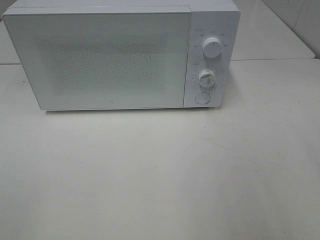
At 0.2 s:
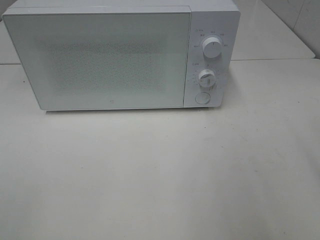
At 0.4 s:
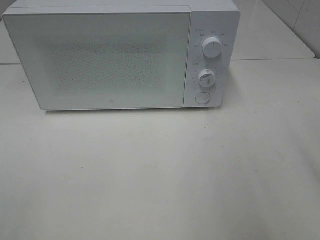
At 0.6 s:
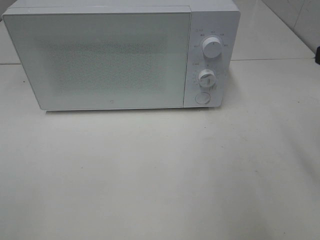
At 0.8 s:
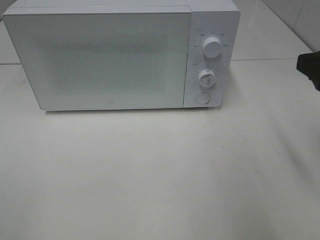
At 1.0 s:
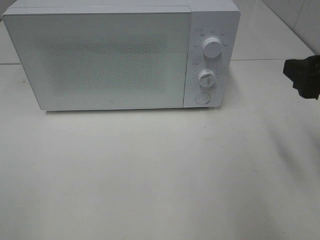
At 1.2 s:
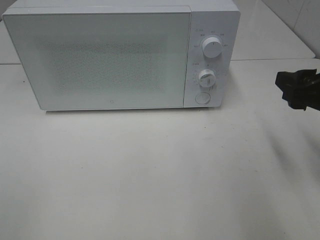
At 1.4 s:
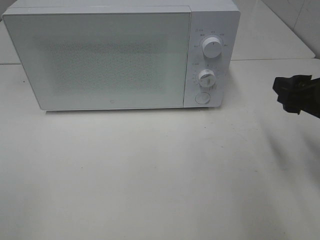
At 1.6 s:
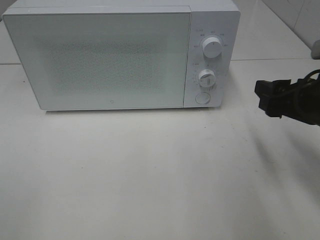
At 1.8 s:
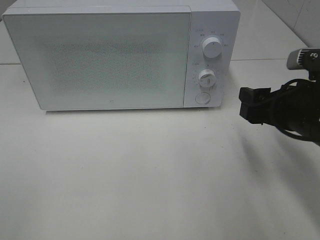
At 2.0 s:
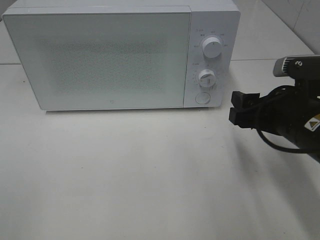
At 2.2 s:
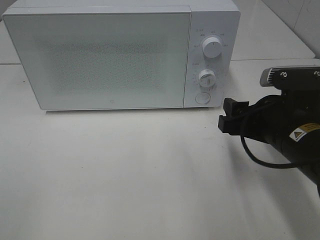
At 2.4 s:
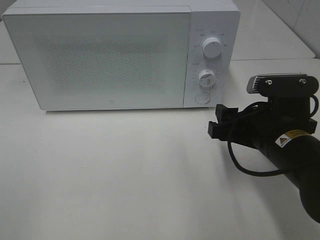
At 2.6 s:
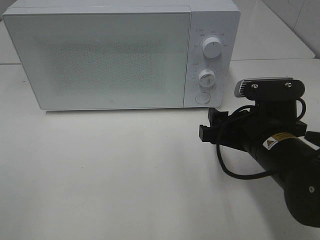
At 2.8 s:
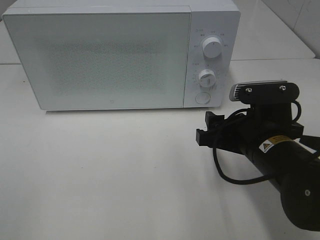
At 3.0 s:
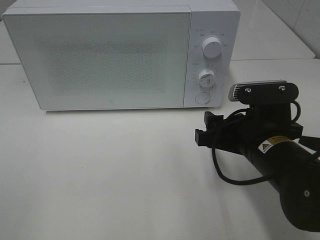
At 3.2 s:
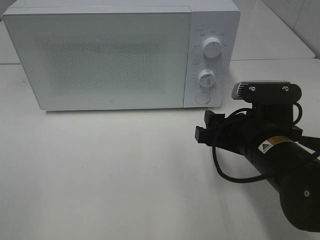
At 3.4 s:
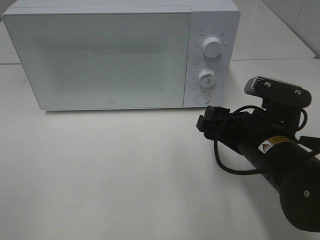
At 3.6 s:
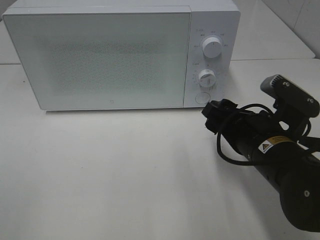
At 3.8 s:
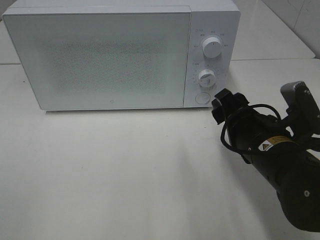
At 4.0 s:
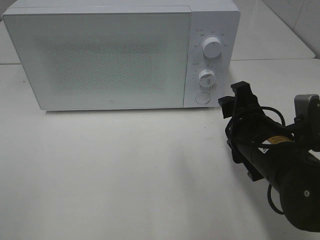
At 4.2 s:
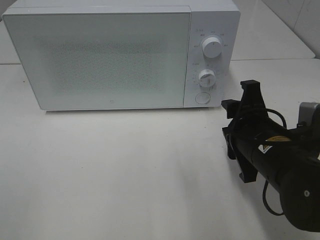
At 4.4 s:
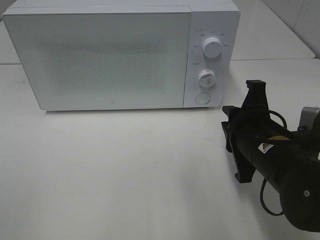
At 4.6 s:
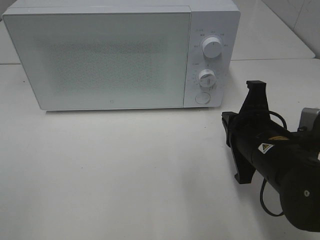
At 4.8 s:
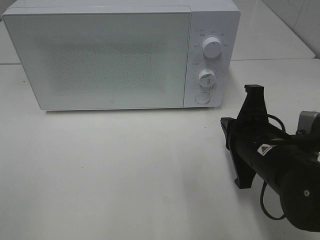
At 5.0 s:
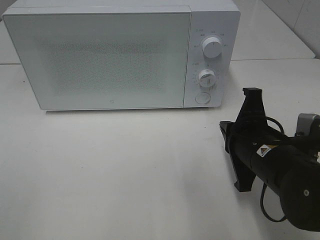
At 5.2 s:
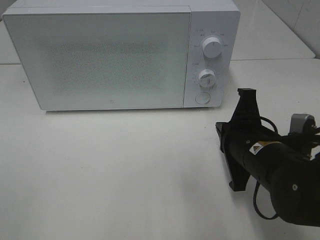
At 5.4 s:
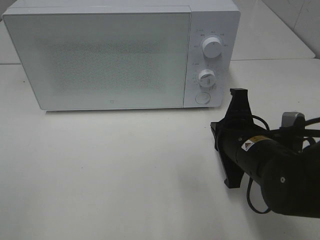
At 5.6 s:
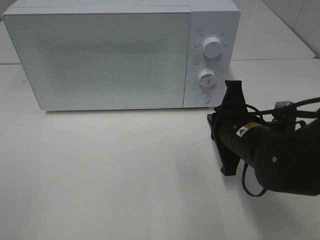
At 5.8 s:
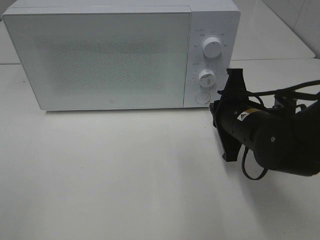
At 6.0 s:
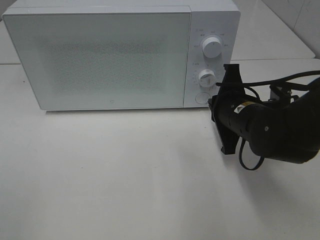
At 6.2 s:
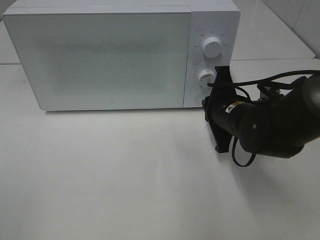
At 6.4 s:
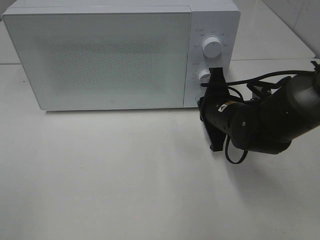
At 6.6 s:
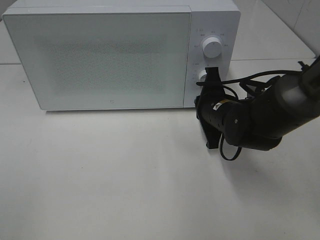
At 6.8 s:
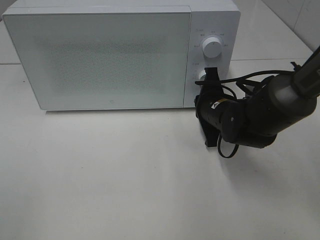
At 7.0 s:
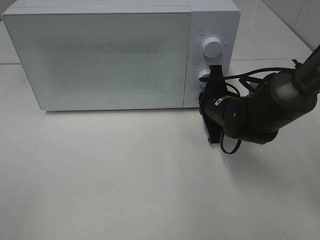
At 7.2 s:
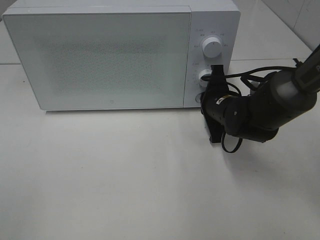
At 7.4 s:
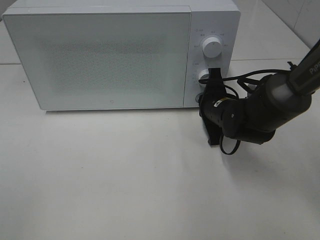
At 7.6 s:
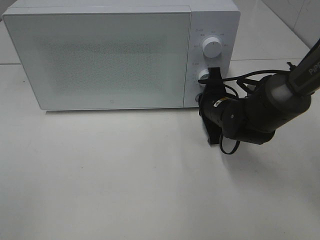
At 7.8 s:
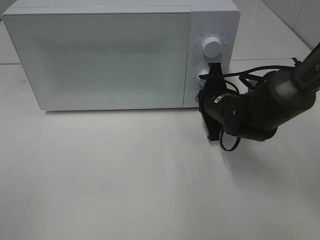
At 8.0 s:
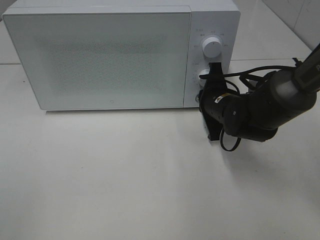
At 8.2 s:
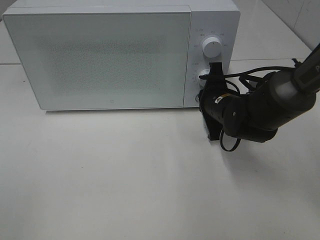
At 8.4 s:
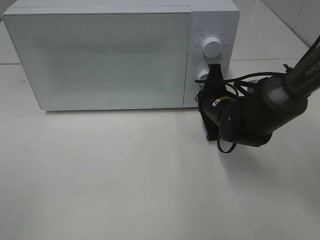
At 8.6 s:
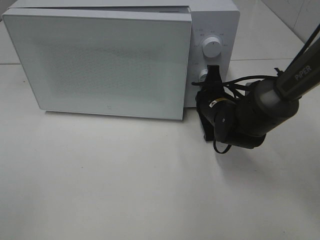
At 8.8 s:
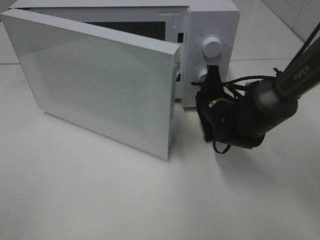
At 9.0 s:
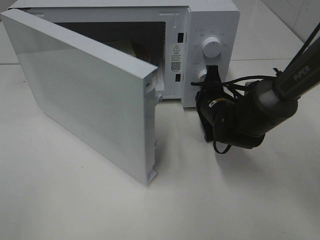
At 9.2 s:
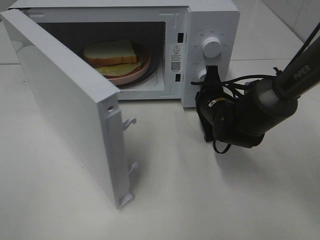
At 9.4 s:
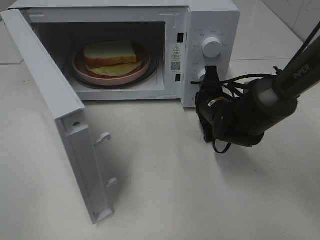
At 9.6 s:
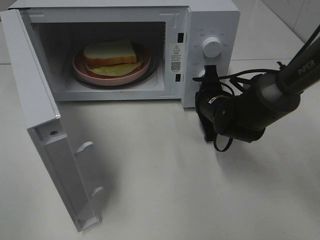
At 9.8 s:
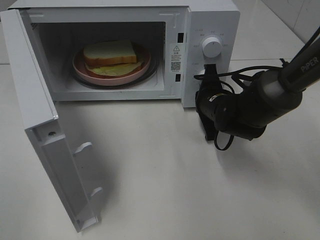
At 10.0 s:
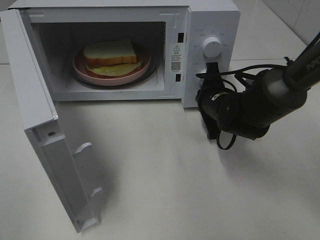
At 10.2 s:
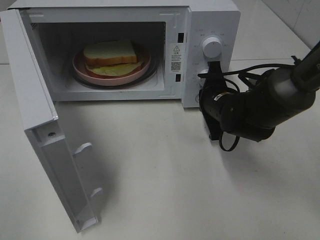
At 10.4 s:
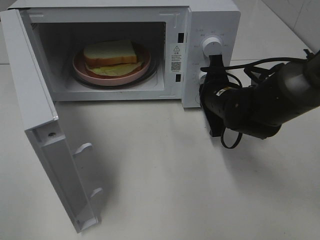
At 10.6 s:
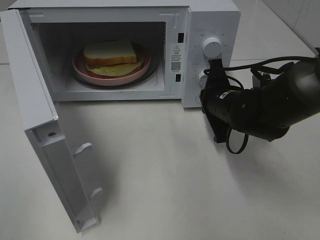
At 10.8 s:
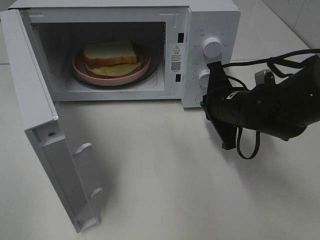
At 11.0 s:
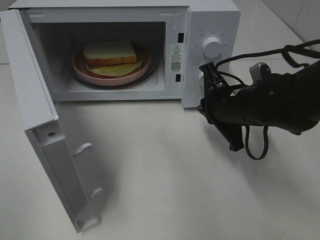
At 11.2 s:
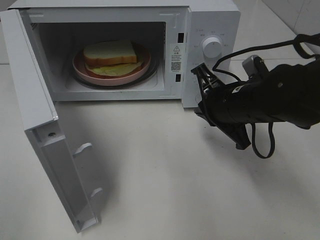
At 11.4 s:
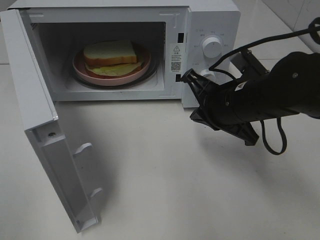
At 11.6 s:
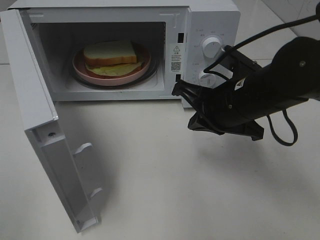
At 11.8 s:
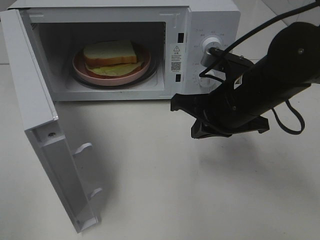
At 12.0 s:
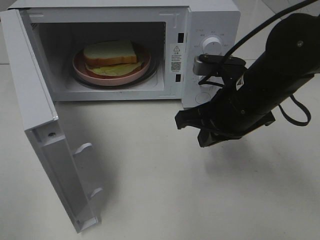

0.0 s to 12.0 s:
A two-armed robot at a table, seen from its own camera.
Task of the whole recording: Heat Sandwich.
Step, 0.0 to 10.4 s: Right hand: press the switch.
0.0 to 1.6 s: The right gripper travels downward and forward by about 15 cm.
1.6 to 3.0 s: The right gripper moves to the left and downward, about 10 cm.
3.0 to 4.4 s: The right gripper closes.
4.4 to 6.0 s: The right gripper moves forward, about 10 cm.
6.0 to 7.6 s: The right gripper travels forward by approximately 5 cm.
10.4 to 12.0 s: The right gripper shifts about 10 cm backward and upward.

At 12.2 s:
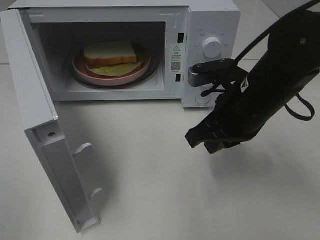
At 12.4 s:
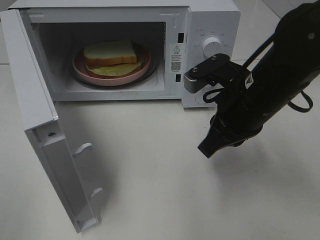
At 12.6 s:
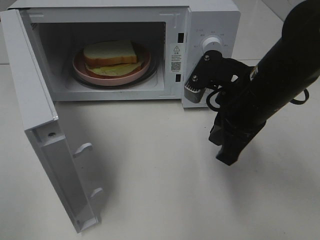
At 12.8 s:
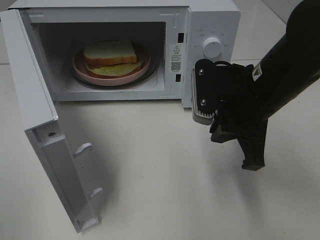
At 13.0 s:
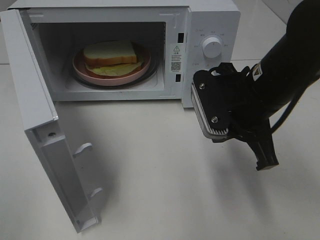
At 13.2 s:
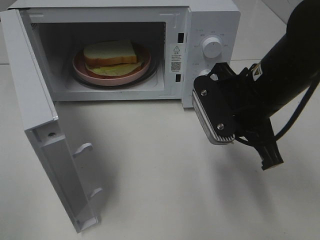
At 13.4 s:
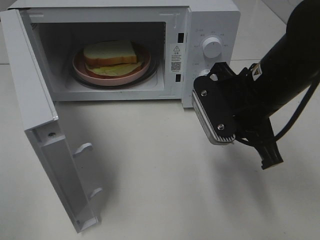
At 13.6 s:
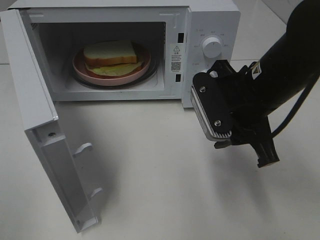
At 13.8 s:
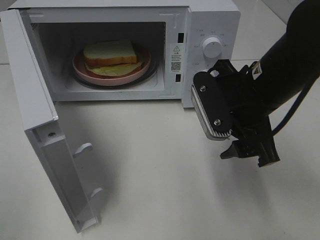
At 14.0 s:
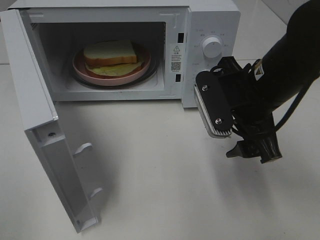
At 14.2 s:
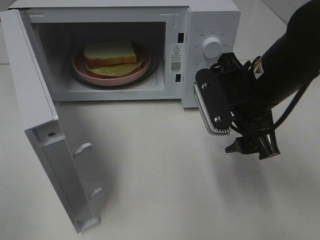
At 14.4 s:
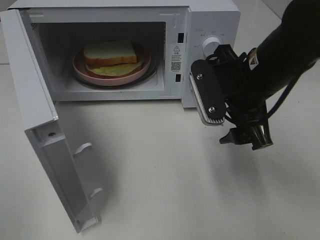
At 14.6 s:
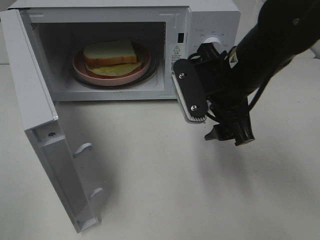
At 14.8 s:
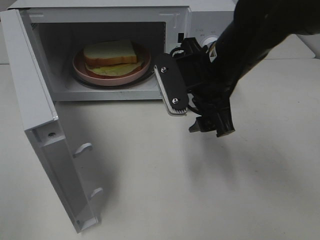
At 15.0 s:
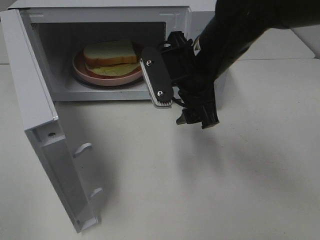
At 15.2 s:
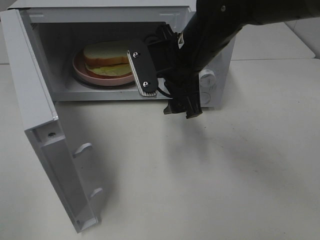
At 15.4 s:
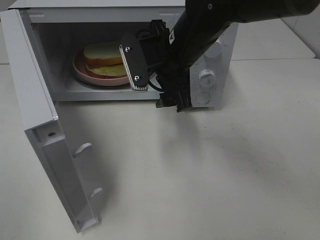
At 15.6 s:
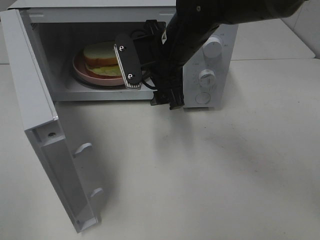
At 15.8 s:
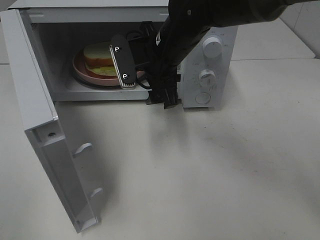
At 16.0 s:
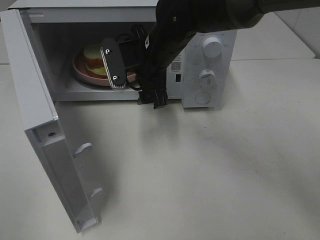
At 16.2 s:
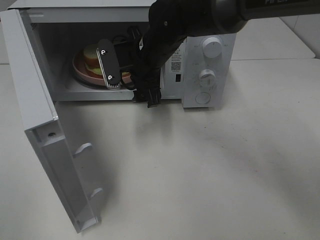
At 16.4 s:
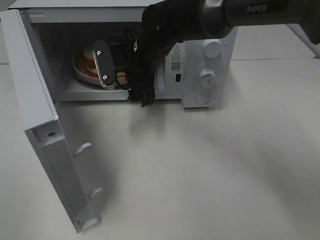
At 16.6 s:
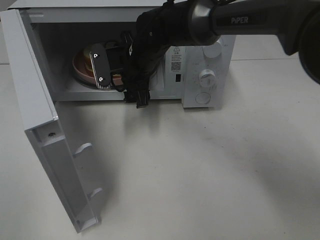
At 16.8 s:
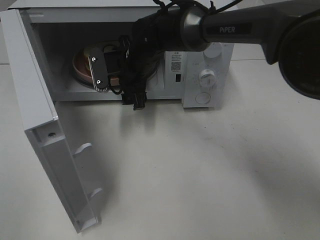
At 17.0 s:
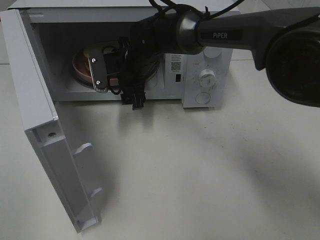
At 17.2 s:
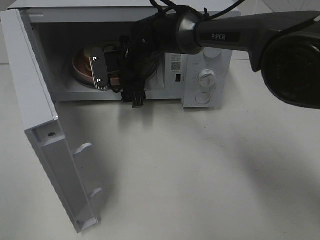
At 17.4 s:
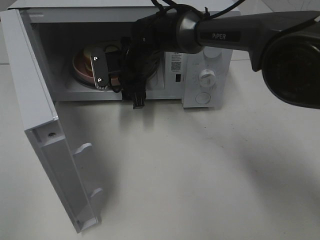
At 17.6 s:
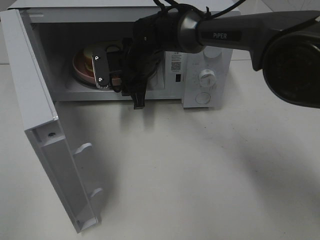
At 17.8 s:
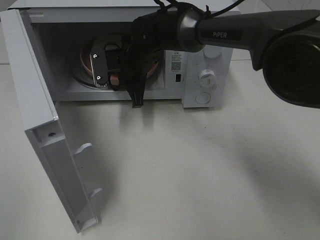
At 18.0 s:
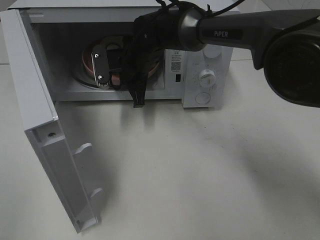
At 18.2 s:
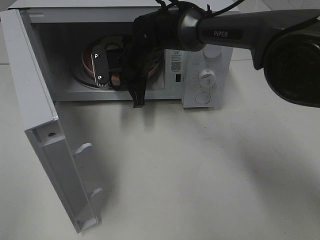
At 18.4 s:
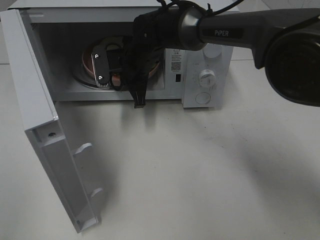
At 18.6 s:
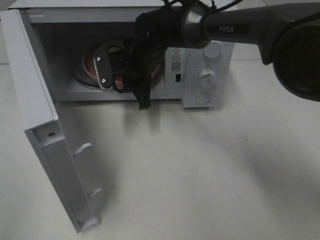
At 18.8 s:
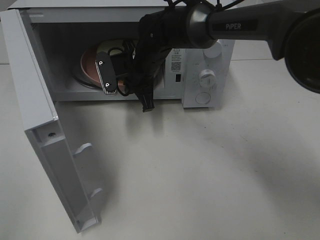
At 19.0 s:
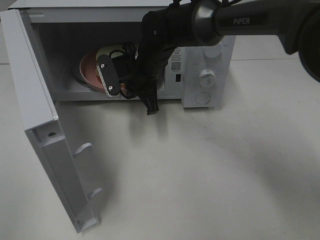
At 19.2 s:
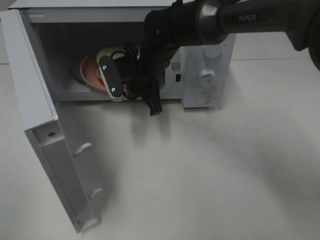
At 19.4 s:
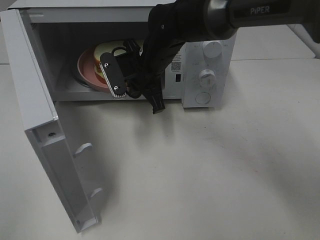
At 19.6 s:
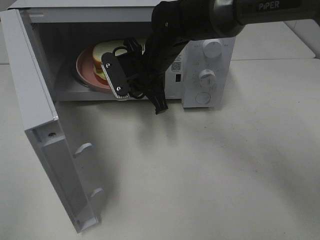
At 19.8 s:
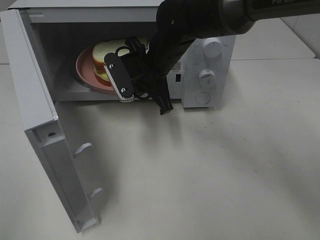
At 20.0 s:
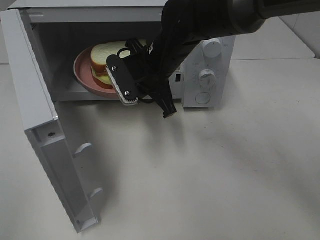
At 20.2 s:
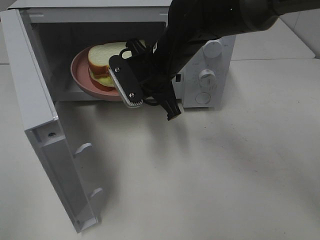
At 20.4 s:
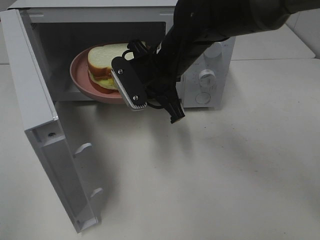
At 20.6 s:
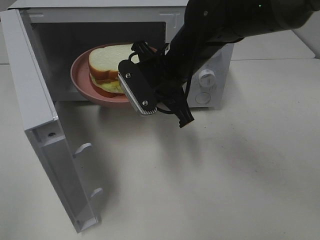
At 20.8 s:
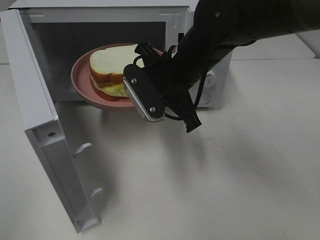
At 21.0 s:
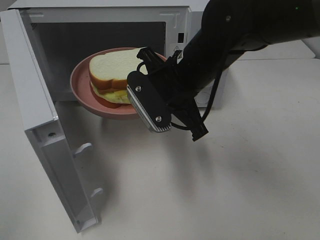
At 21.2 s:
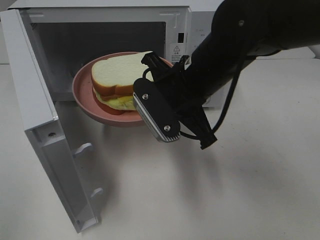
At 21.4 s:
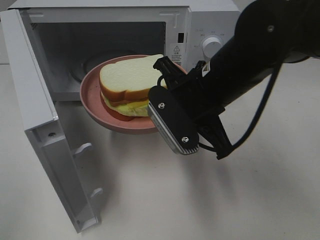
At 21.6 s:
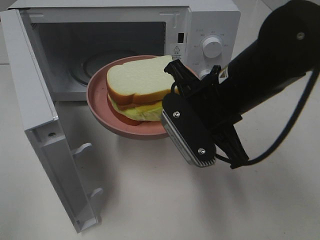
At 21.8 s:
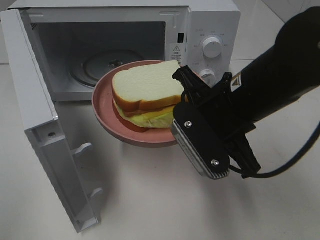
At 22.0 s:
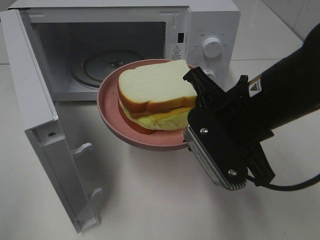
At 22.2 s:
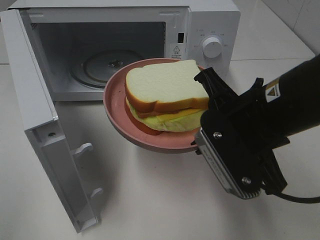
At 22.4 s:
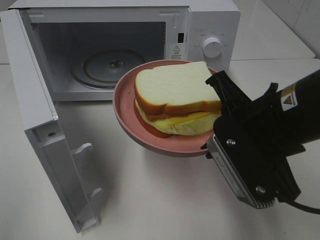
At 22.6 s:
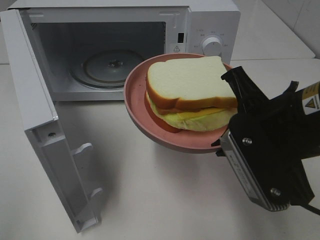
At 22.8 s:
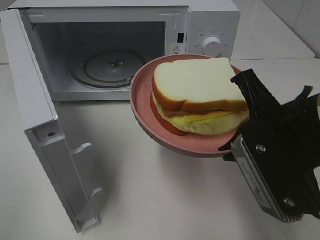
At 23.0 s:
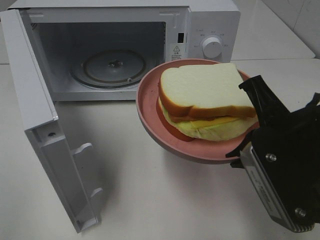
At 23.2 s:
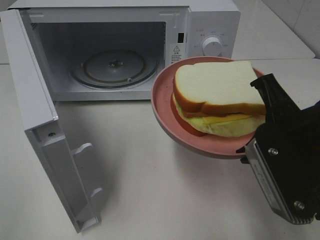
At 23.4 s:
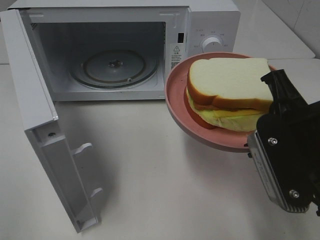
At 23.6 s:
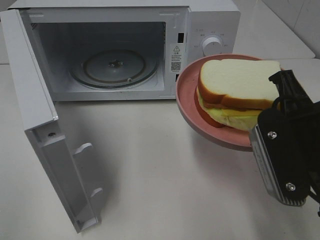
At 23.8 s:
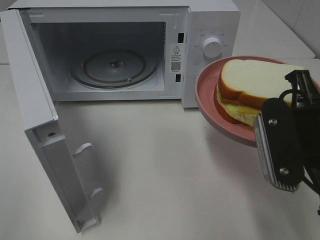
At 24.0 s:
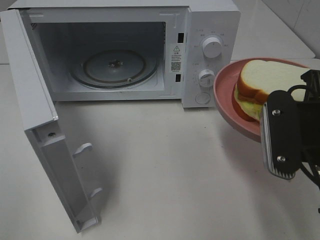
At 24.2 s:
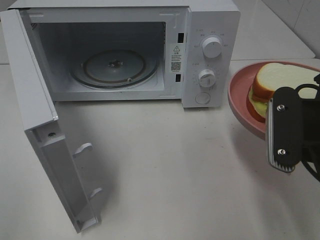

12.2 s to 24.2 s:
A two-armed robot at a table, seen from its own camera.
Task of the whole recording: Heat Sandwich.
Step, 12.2 to 18.2 s: Right hand: grab the plate with the sandwich.
12.2 to 13.8 s: The right gripper opens.
13.8 to 15.2 s: The right gripper is displaced to the left and forward by some 10 cm.
15.2 to 16.6 s: The right gripper is displaced forward, to the left and downward by roughly 15 cm.
16.6 to 18.2 s: The right gripper closes.
18.2 to 19.8 s: The right gripper travels backward by roughly 5 cm.
19.8 to 21.2 s: The right gripper heads backward and to the right, covering about 10 cm.
21.2 to 22.6 s: The right gripper is displaced backward and to the right by approximately 15 cm.
22.6 to 24.2 s: The right gripper goes roughly 5 cm to the right.
